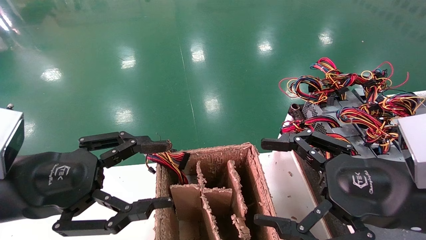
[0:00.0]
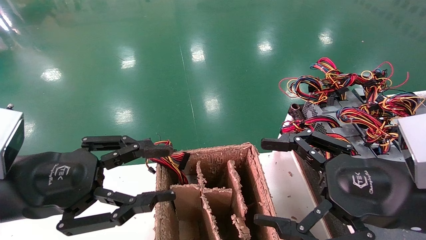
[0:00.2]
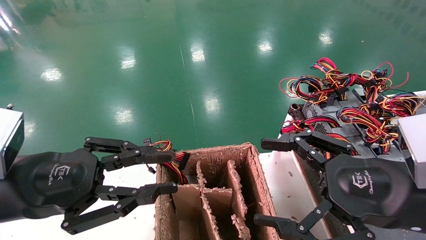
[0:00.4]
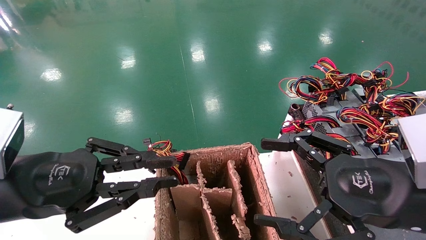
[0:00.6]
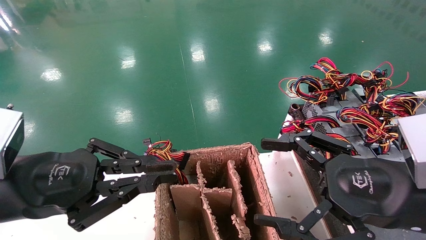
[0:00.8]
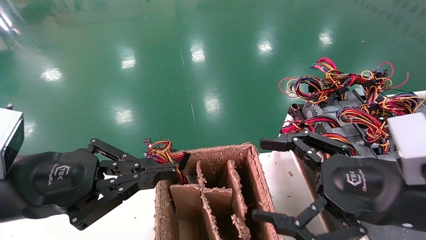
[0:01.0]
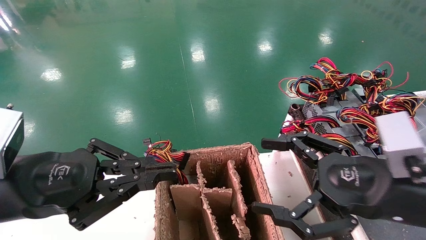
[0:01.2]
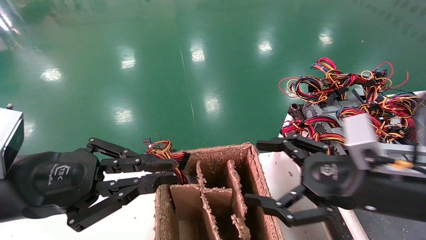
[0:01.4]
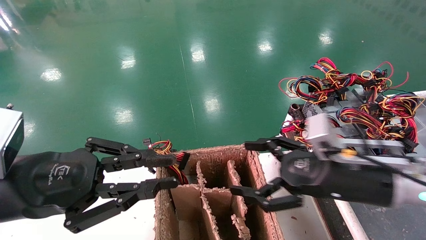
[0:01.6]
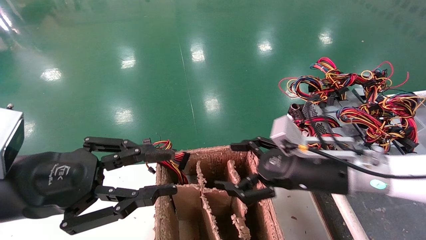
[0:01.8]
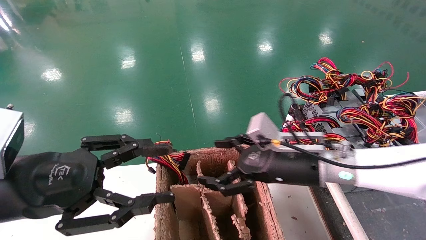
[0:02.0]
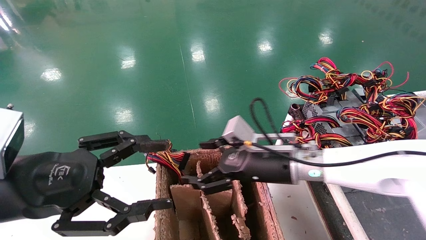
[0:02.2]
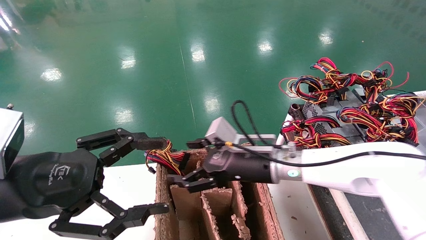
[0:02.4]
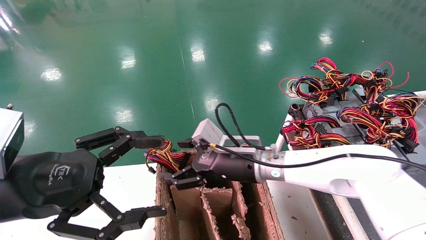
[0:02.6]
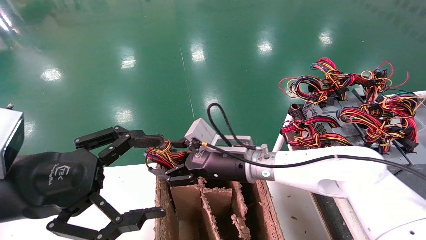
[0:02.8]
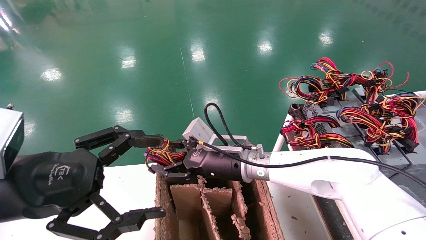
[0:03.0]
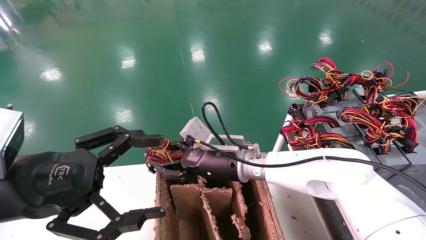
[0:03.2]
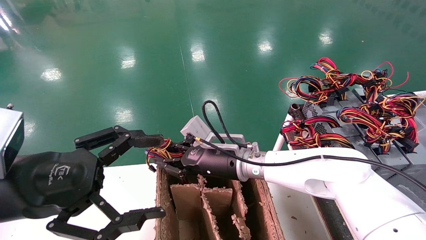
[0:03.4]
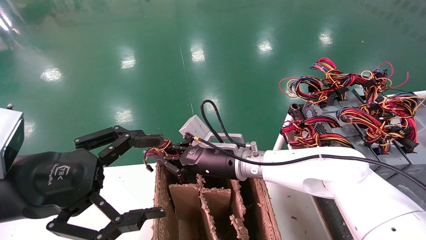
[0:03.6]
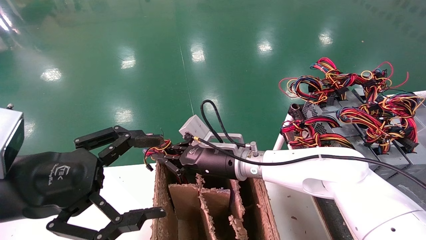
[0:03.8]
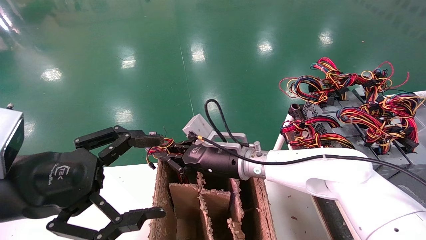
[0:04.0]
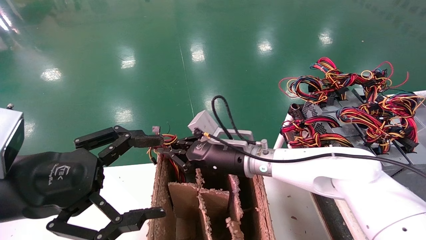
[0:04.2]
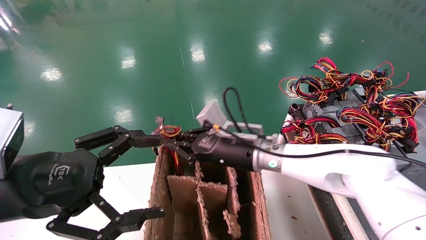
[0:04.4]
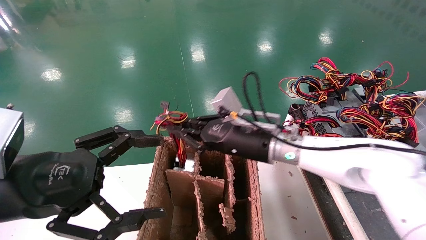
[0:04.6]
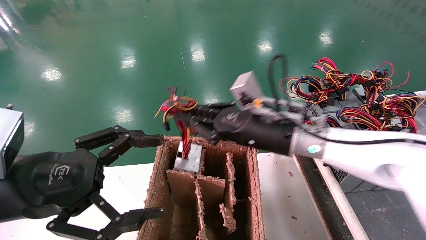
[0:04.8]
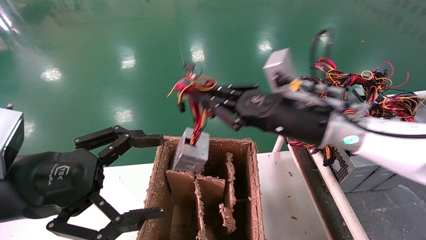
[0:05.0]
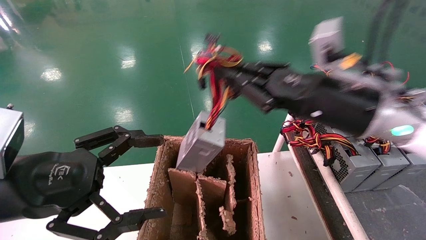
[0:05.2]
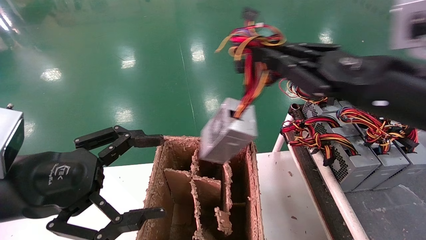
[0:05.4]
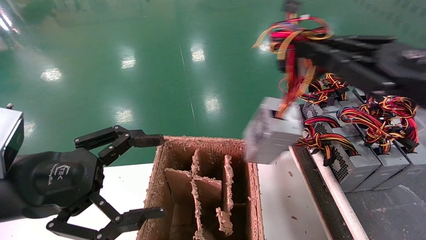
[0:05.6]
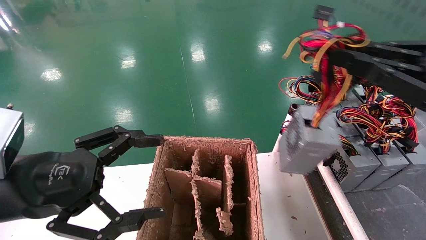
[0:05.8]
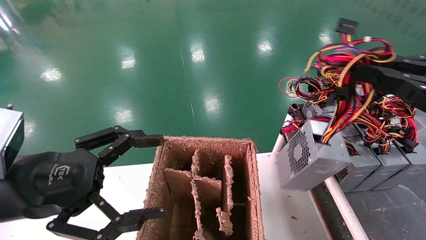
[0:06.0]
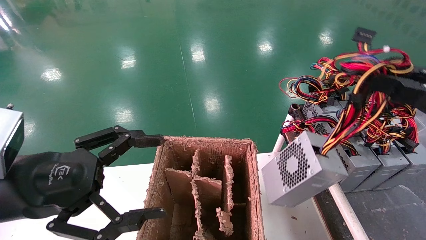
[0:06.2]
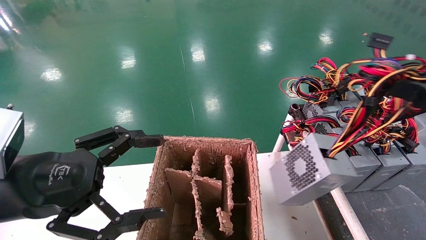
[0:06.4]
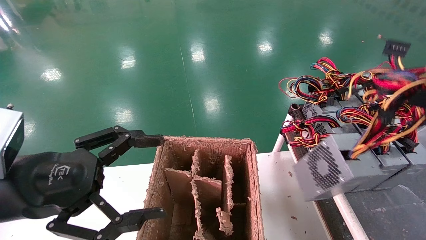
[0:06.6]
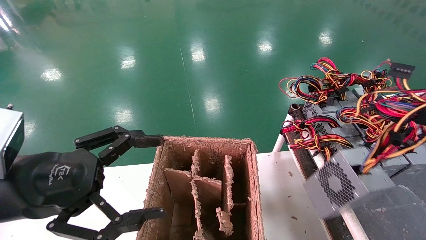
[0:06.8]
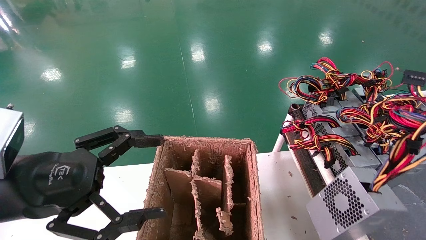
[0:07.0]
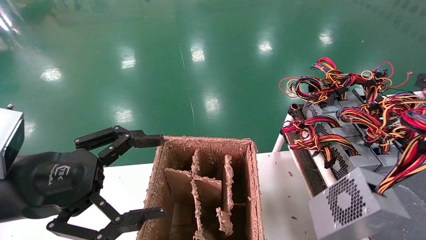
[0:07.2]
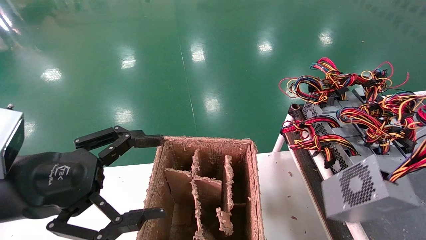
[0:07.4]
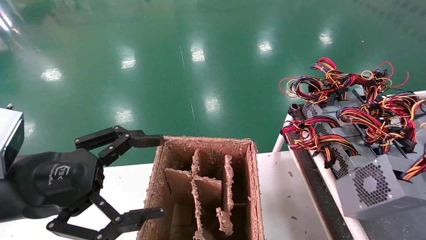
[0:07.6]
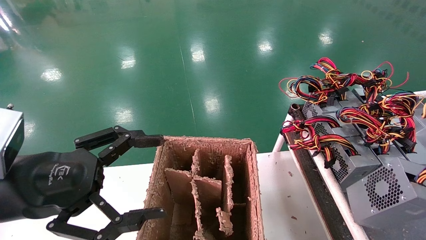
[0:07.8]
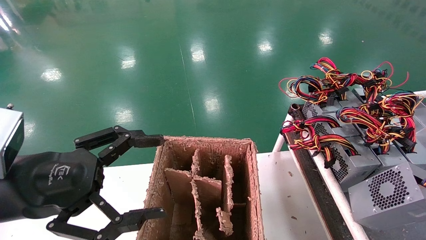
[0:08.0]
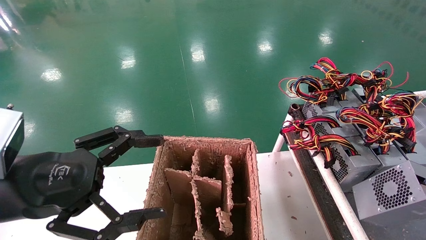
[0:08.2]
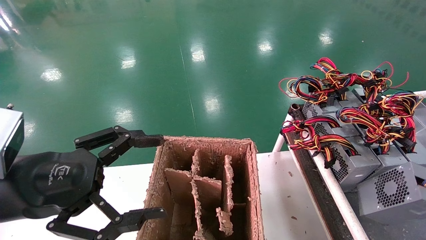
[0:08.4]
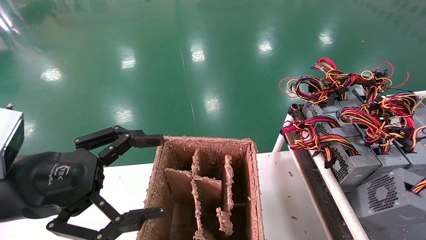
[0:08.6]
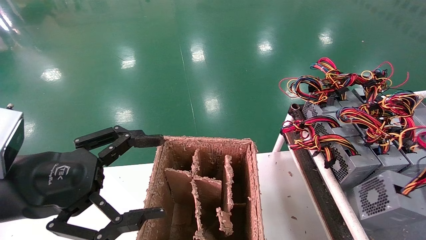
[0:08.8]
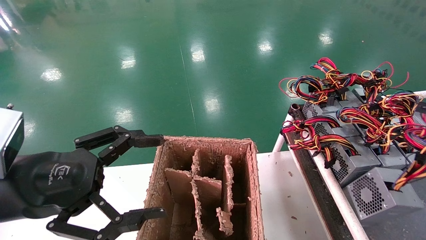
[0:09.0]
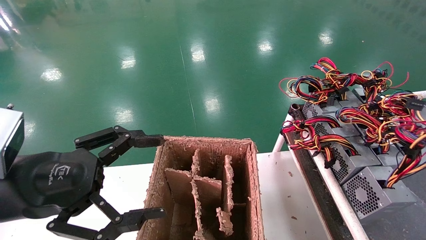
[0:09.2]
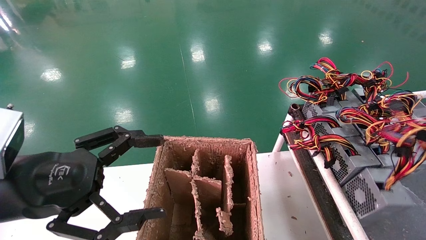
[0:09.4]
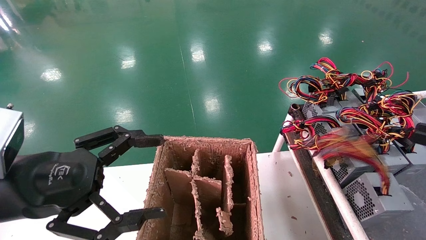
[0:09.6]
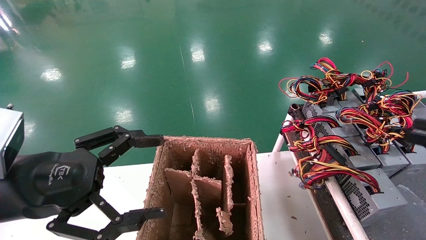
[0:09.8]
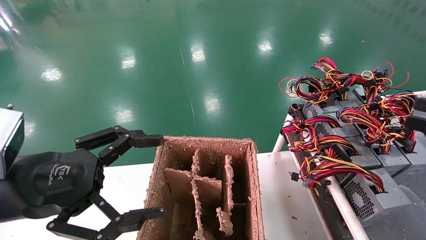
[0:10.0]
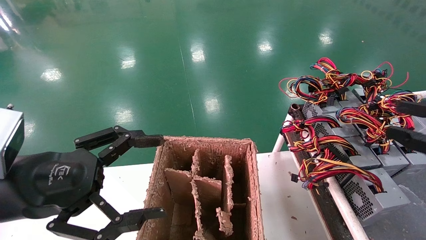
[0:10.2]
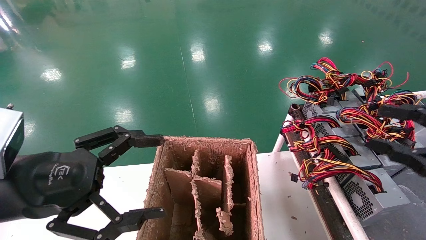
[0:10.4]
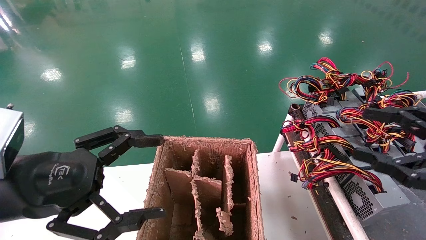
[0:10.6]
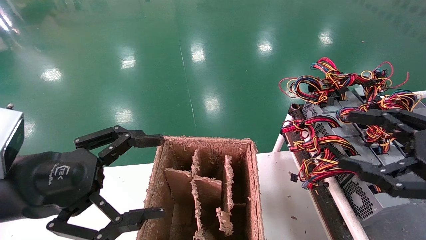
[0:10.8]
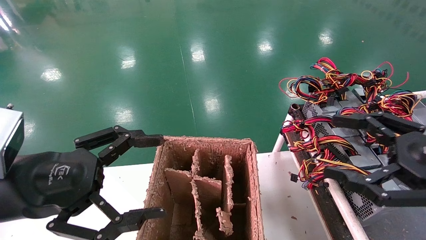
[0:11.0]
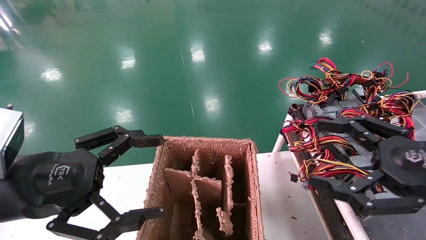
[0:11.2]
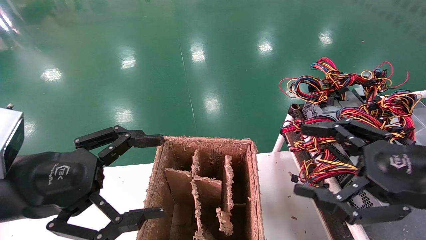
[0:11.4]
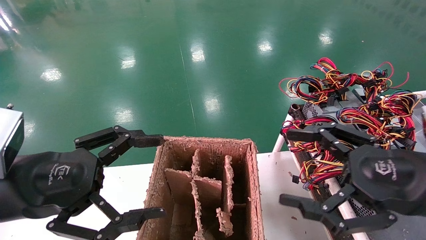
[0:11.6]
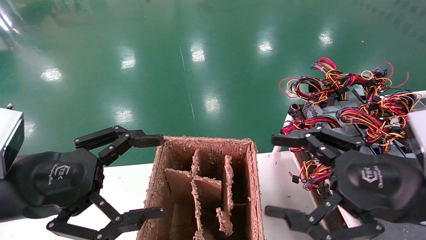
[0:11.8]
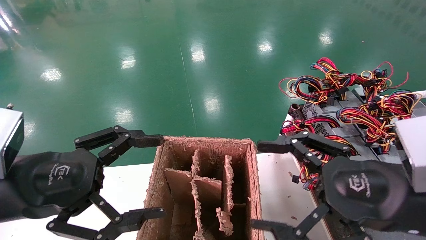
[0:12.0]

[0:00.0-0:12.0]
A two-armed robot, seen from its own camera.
Step, 0:01.2 to 0:03.8: Grab and lift the power supply from the large box.
Step, 0:04.0 to 0:09.8: Place the power supply on the operating table.
0:00.0 to 0:01.6: The left gripper closes up. The right gripper is displaced forward by some 10 cm.
0:01.6 to 0:03.0: The left gripper opens up. The right gripper travels to the left and forward by roughly 20 cm.
0:03.0 to 0:04.4: The right gripper closes its fingers.
0:04.4 to 0:06.0: The right gripper moves to the right, backward and upward, about 40 cm.
0:06.0 to 0:07.6: The right gripper shifts approximately 15 cm to the right and backward.
0:07.6 to 0:09.0: The grippers stay close to where they were, moving slightly.
0:09.0 to 0:10.4: The right gripper moves to the left and forward, approximately 10 cm, and opens.
0:10.4 to 0:12.0: The right gripper travels to the left by roughly 15 cm, and opens.

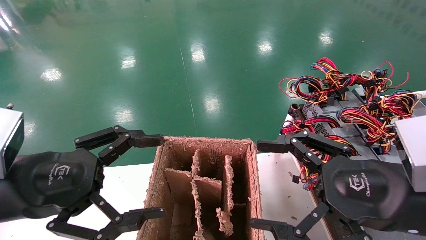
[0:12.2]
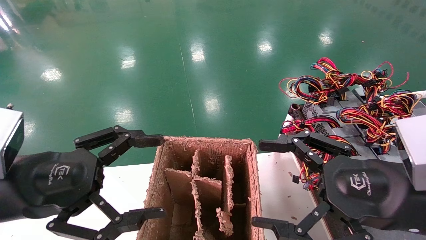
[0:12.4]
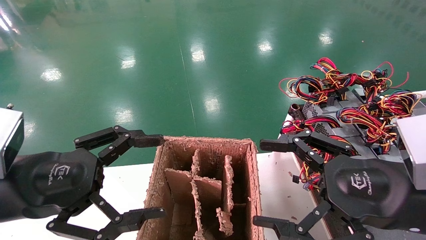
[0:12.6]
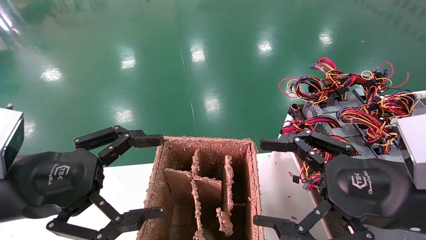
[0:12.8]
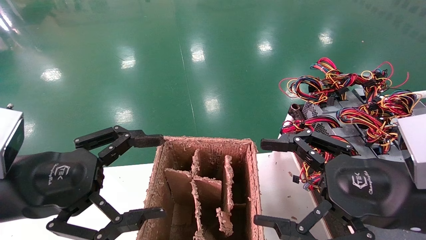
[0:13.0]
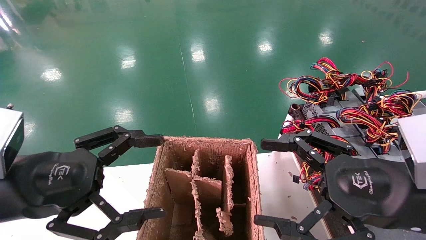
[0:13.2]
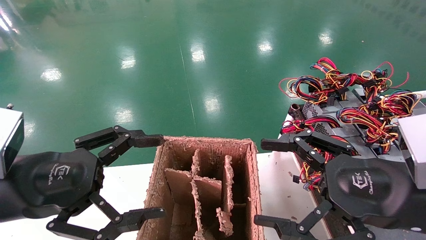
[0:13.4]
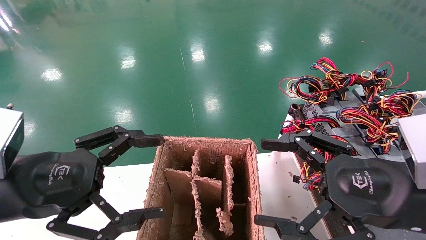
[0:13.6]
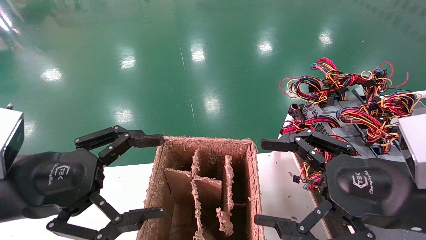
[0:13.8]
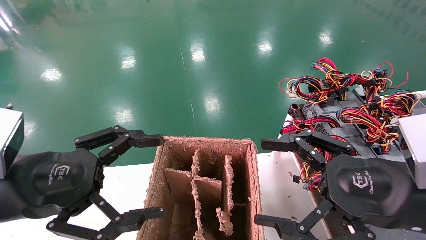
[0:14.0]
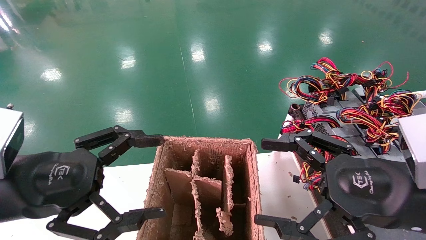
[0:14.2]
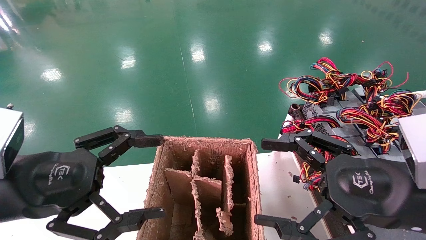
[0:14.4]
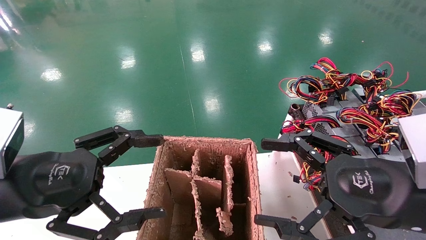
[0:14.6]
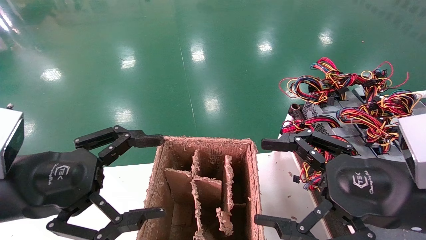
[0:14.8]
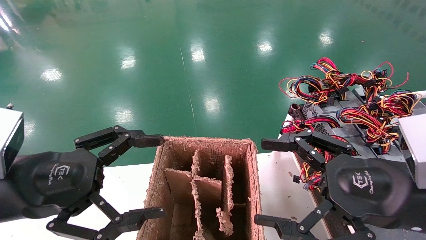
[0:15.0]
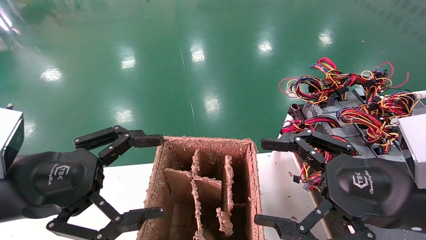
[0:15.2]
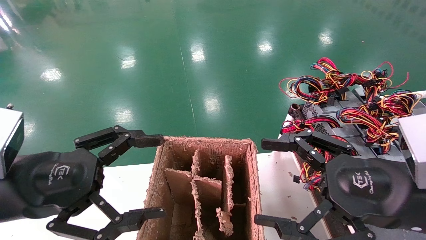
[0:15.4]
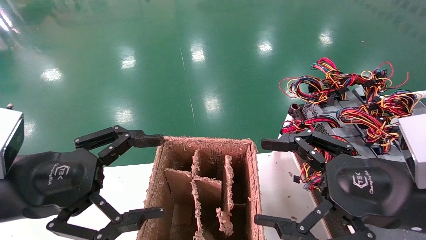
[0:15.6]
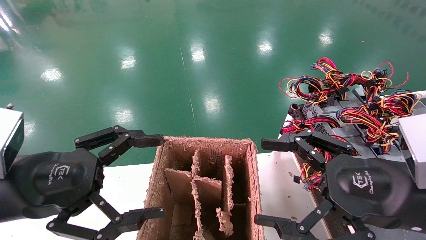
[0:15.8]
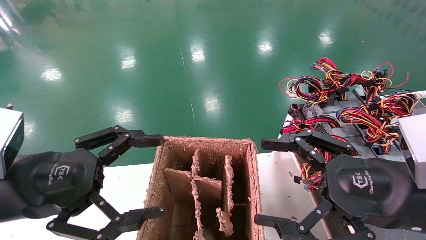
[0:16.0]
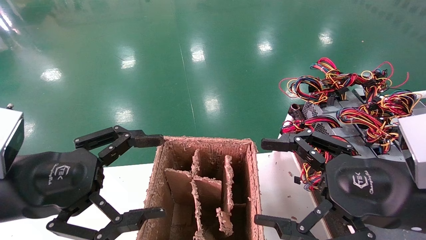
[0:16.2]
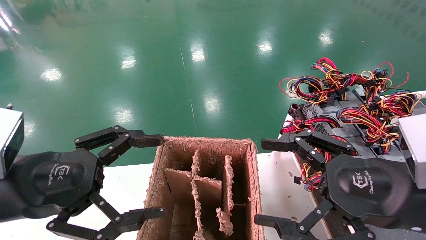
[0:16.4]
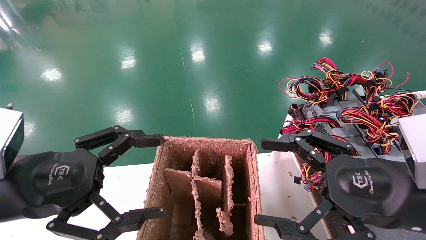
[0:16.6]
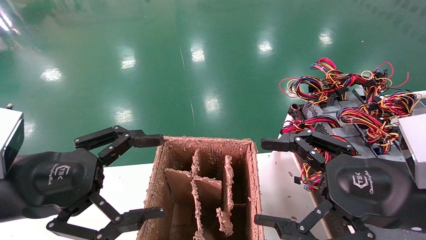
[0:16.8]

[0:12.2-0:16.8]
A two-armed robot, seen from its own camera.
0:12.2 to 0:16.8: Neither gripper changes place.
